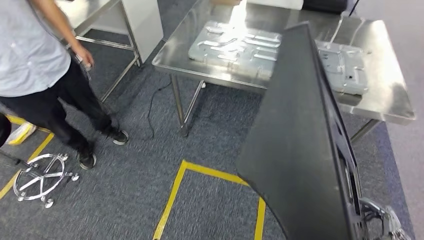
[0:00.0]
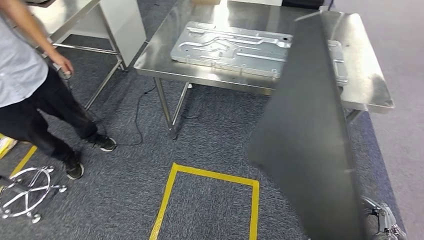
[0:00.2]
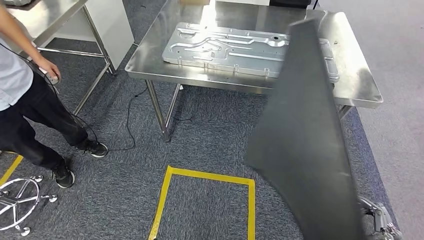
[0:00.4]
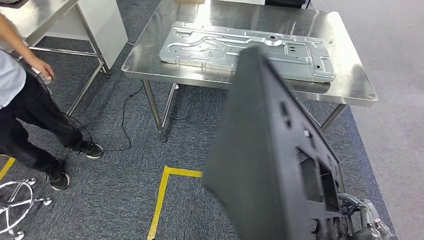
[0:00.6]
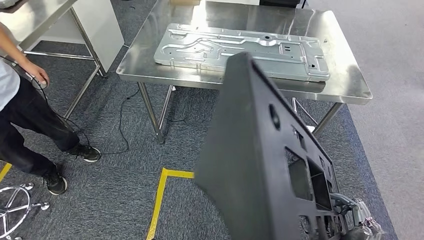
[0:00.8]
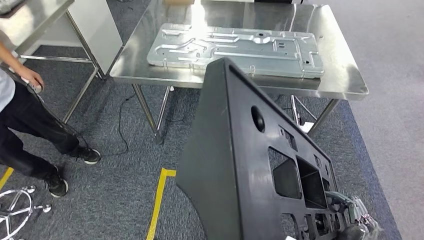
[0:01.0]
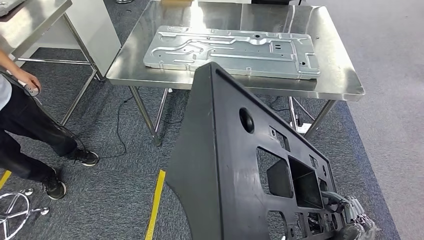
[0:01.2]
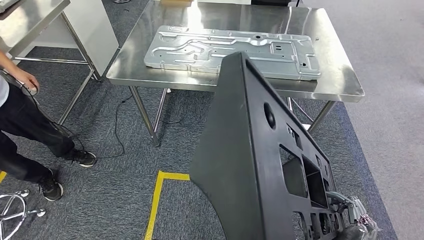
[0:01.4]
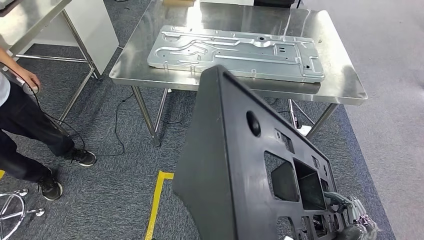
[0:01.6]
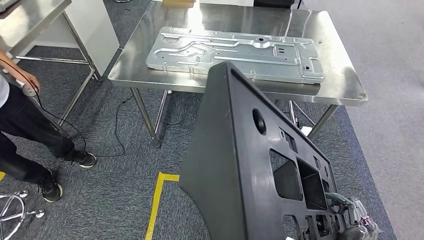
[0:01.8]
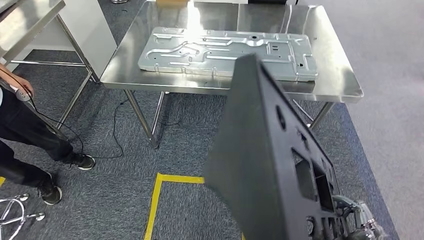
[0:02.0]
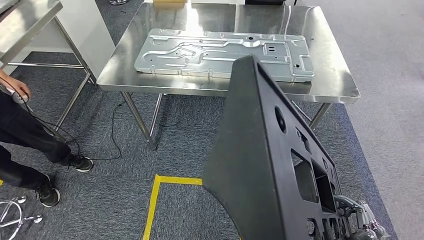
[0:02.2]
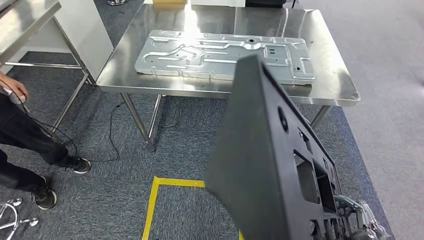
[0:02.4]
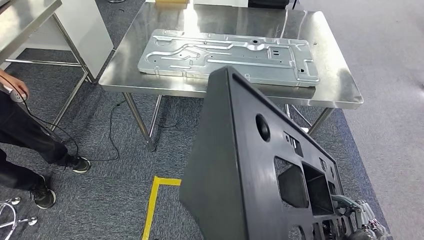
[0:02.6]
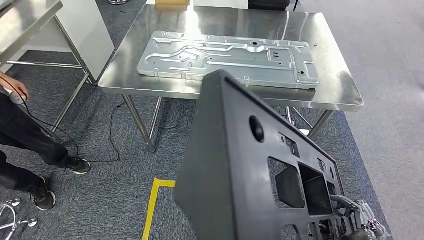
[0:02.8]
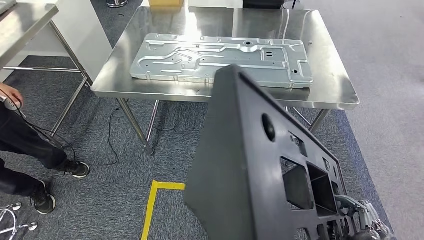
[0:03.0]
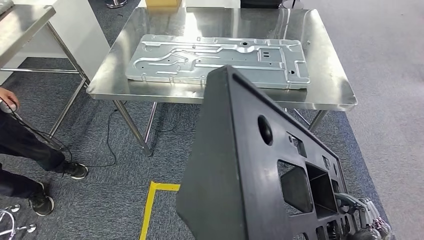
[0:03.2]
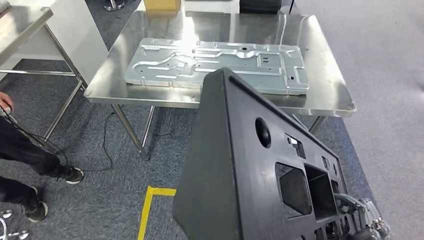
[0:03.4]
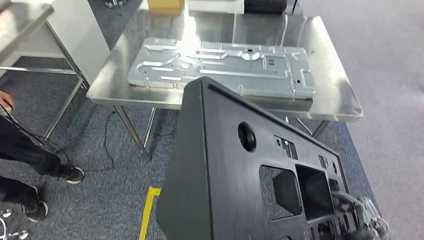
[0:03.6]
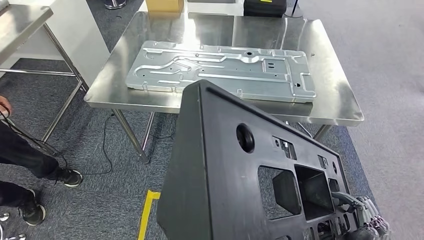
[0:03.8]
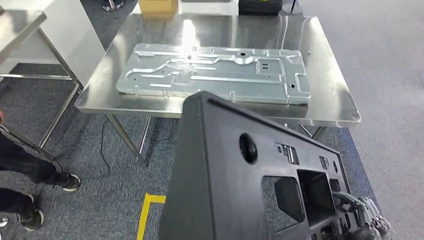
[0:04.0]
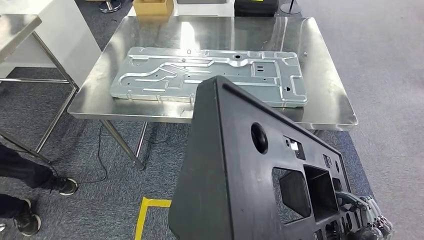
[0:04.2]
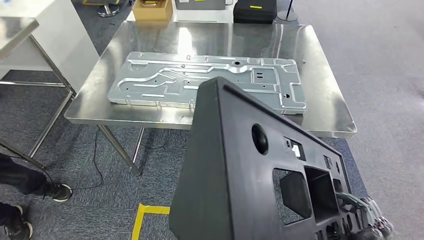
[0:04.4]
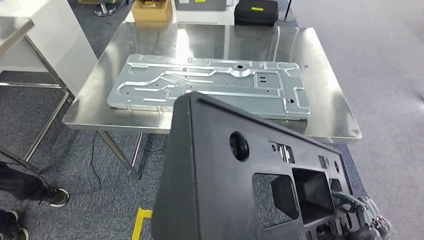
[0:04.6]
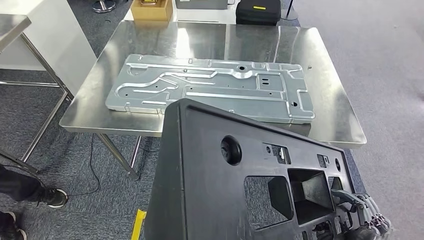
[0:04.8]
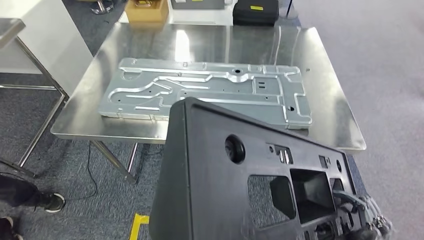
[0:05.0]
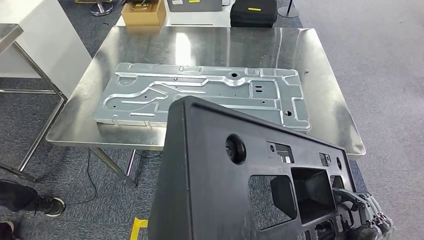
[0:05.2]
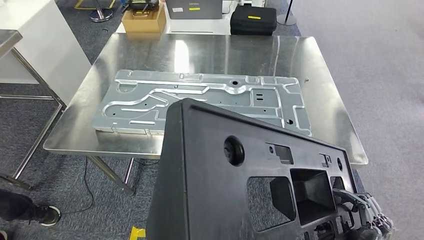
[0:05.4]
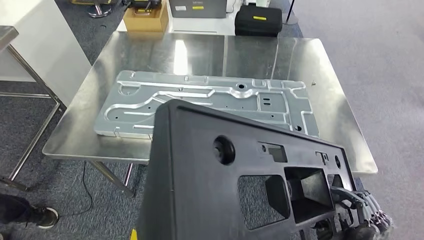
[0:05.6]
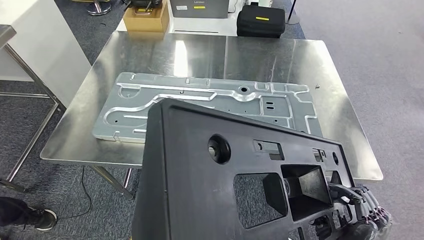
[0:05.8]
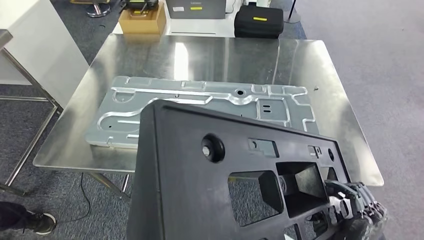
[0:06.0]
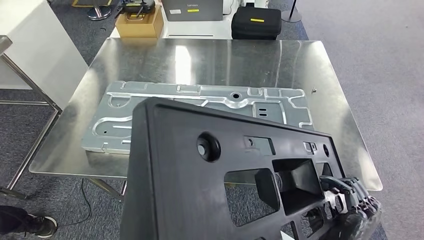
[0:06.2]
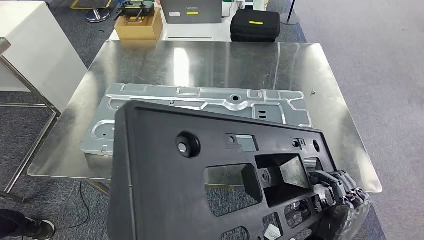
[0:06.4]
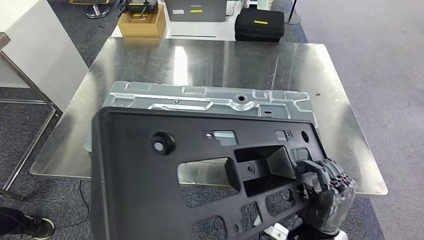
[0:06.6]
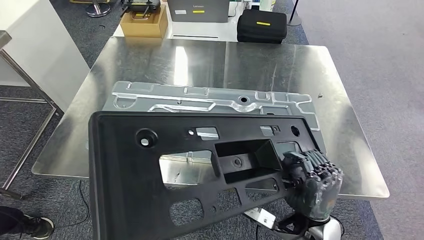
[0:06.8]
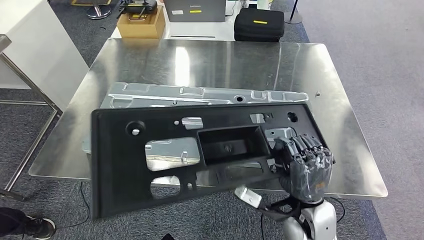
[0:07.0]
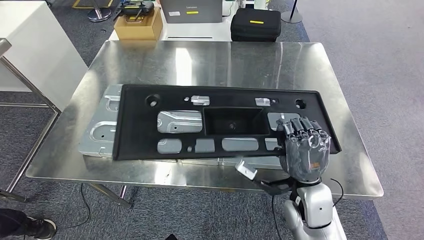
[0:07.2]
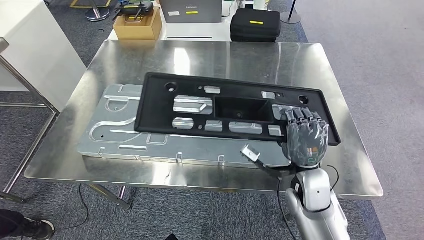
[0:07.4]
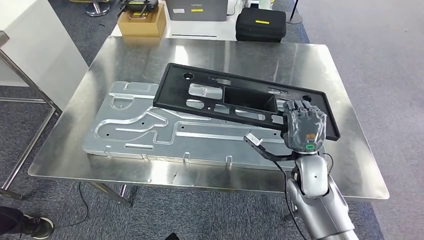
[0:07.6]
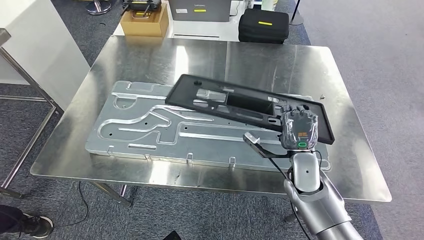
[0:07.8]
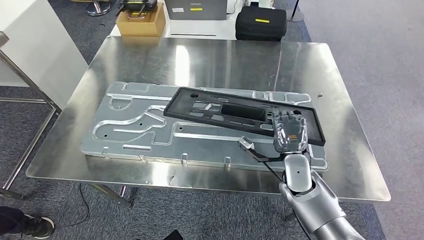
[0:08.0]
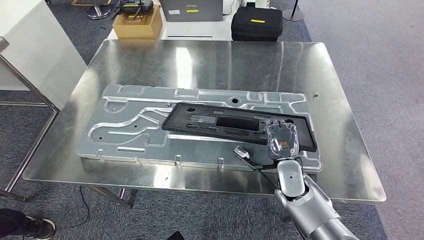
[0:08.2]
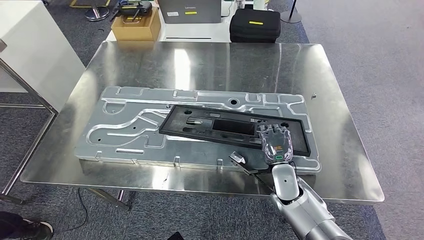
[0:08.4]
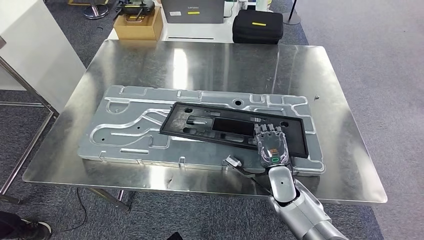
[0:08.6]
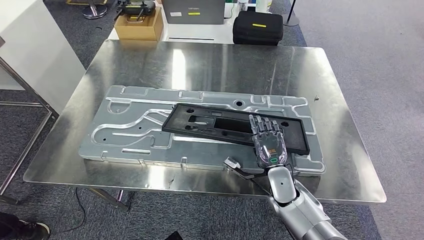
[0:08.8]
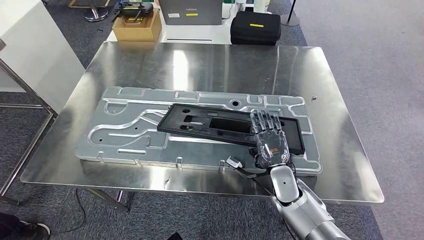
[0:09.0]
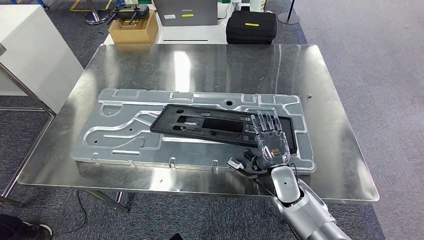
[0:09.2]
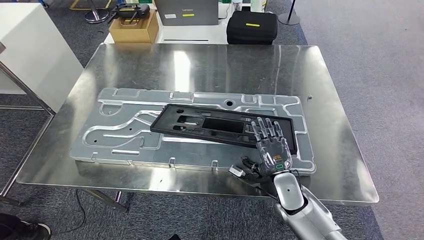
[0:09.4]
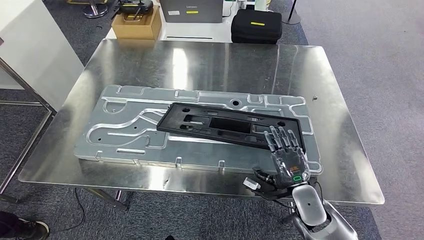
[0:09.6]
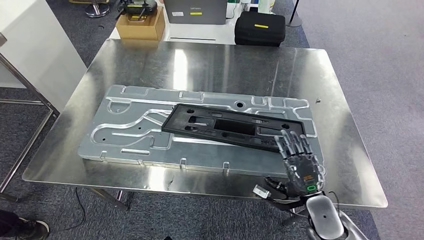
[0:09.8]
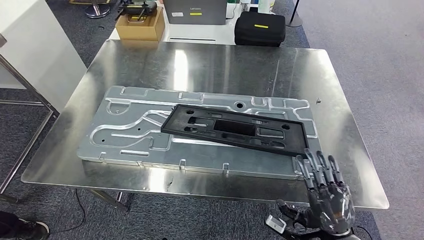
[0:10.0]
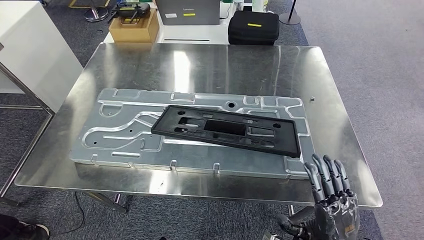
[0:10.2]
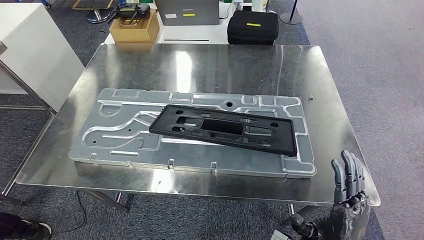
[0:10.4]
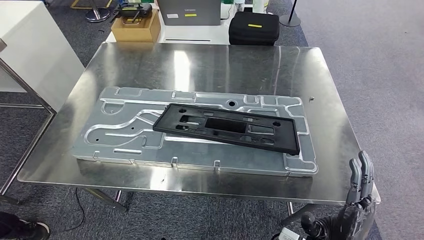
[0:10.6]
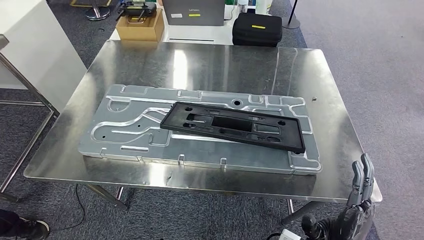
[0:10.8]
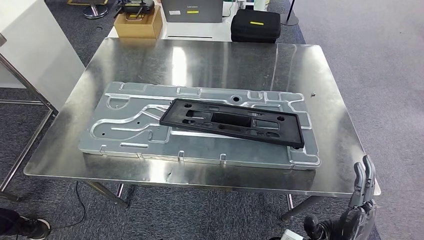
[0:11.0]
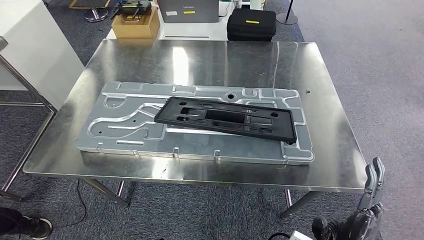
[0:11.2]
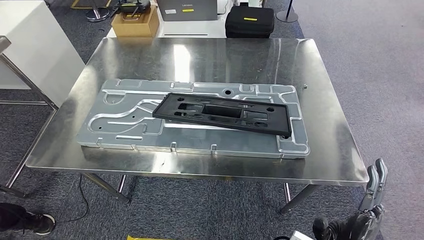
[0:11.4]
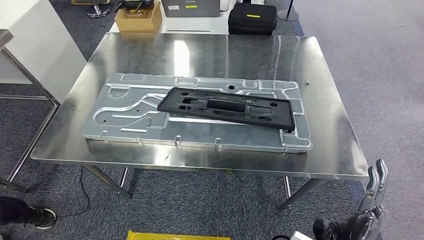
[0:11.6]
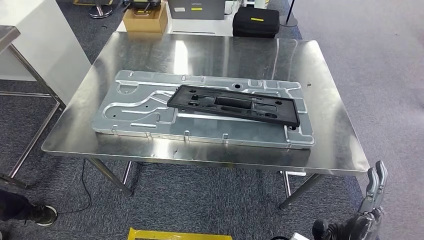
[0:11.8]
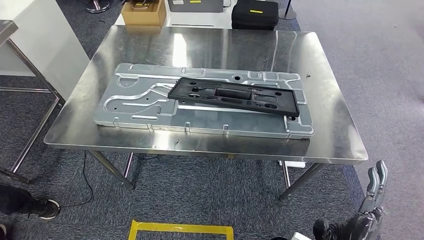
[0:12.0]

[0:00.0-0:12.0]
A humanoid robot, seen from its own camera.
Step, 0:00.0 to 0:05.4: Move the large parts to the workbench.

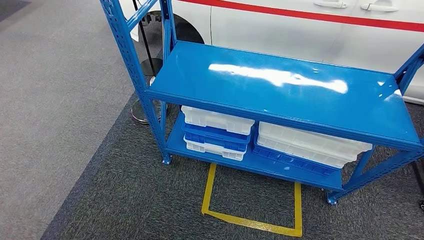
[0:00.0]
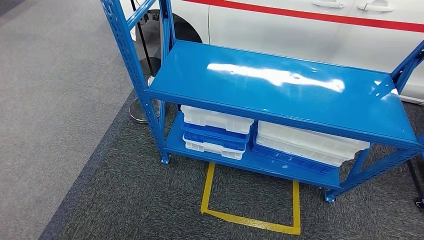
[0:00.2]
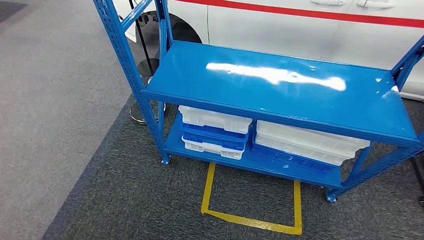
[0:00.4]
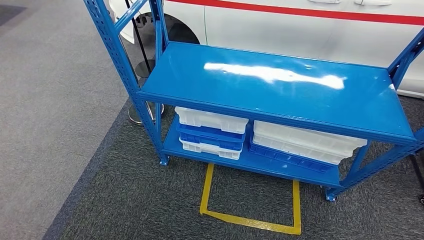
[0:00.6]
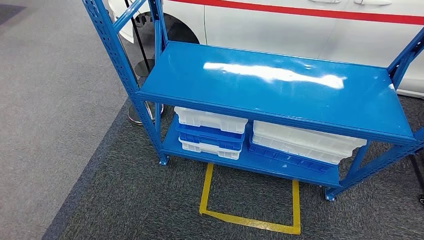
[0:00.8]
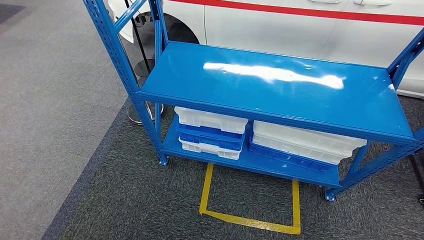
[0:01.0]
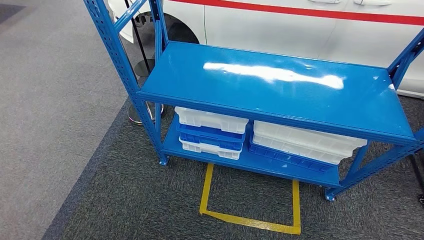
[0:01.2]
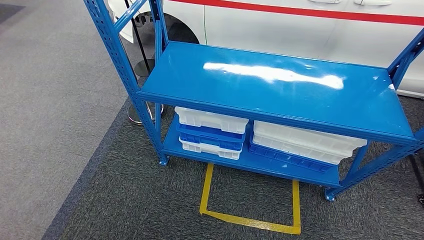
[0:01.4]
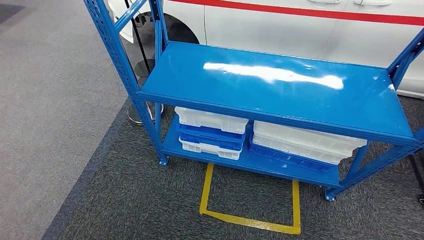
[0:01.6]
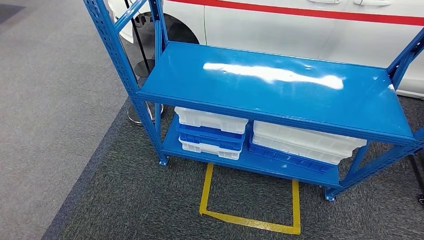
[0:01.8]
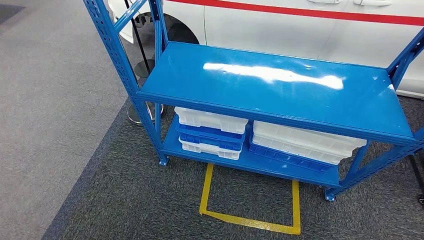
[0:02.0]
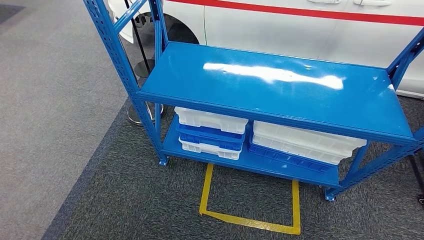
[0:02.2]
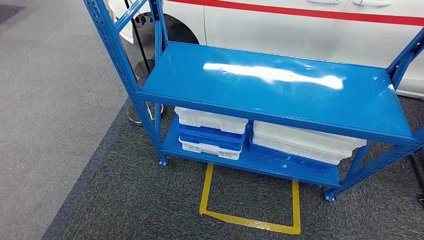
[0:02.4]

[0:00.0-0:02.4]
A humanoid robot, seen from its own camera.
Step, 0:00.0 to 0:02.4: Return to the initial position at the shelf.
0:00.0 to 0:01.2: The hands make only small movements.
0:01.2 to 0:02.4: The right hand travels to the right by roughly 5 cm.

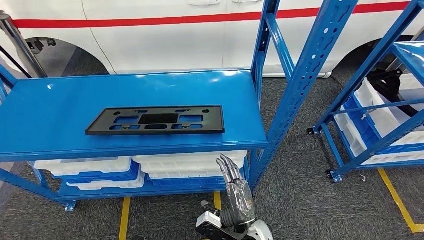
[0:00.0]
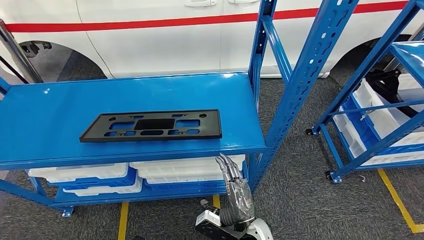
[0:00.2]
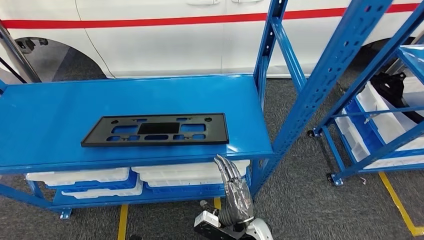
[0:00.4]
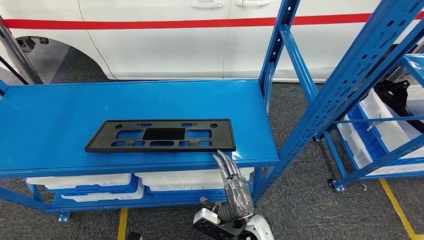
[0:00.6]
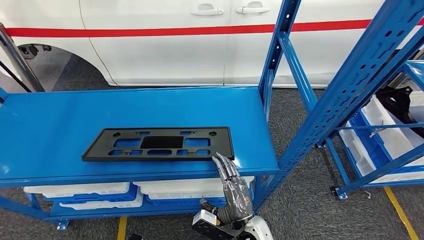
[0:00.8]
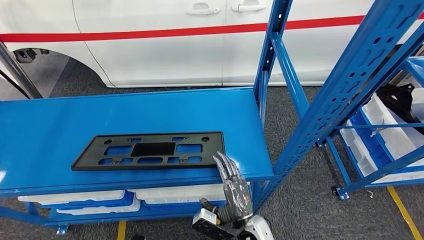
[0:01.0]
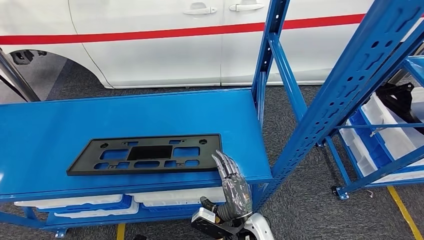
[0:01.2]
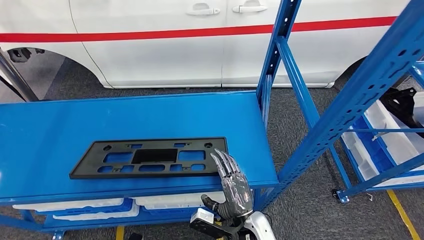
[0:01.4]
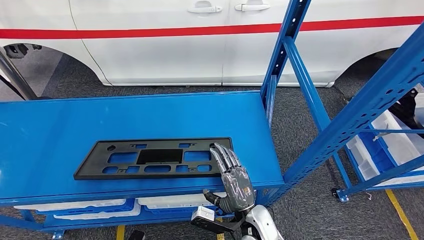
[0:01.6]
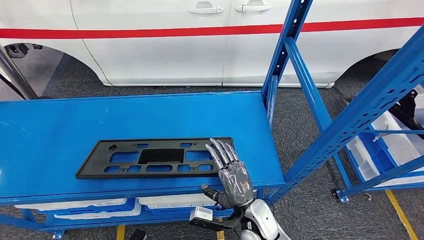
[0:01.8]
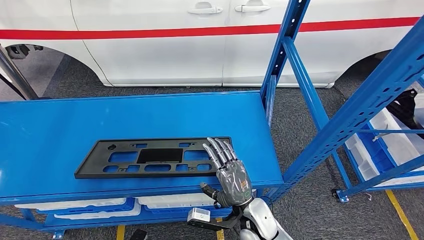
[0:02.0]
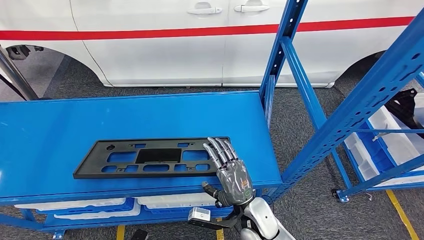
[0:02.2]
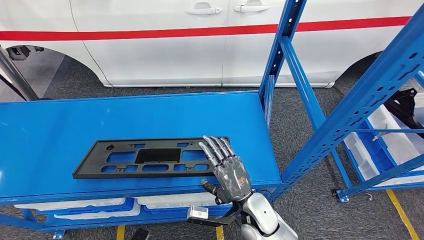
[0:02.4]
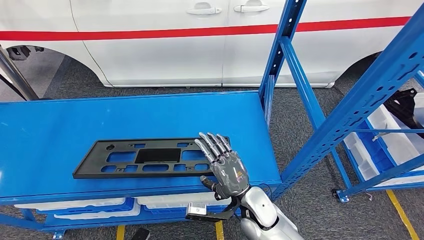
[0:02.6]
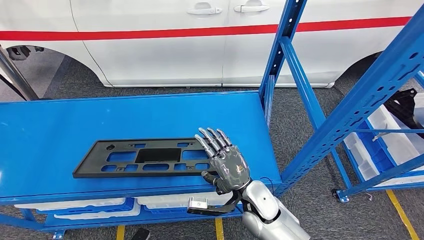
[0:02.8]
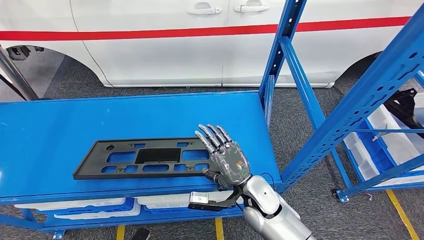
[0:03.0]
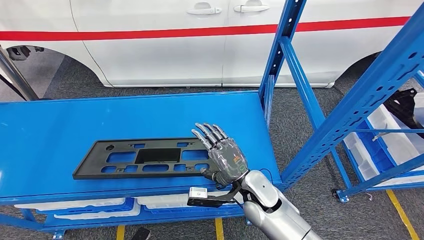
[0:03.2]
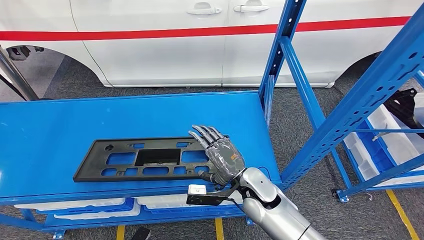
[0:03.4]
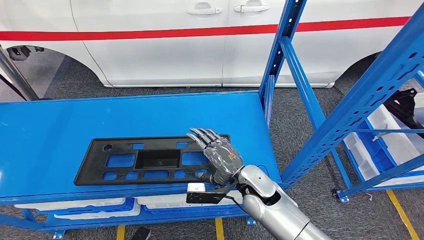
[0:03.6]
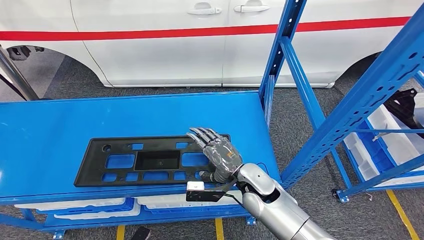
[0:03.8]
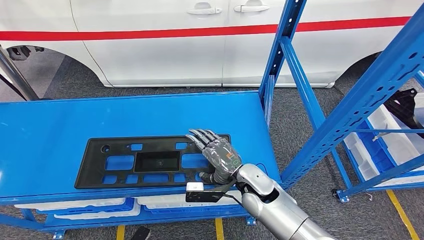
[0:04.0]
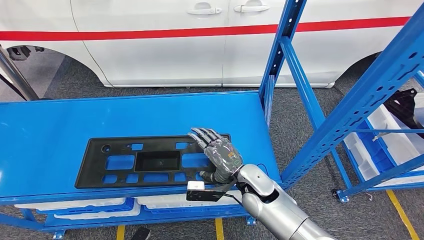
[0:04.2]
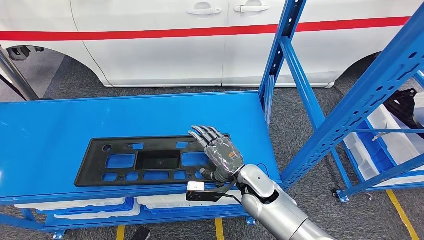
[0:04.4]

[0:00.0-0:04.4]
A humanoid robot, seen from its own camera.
0:01.4 to 0:03.0: The right hand travels forward and upward by about 10 cm.
0:03.0 to 0:04.4: The hands move only a little.
